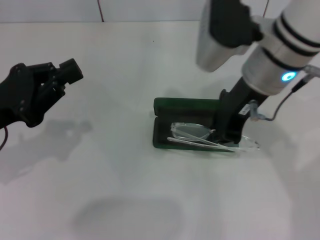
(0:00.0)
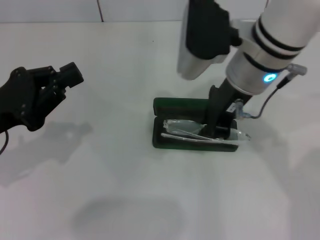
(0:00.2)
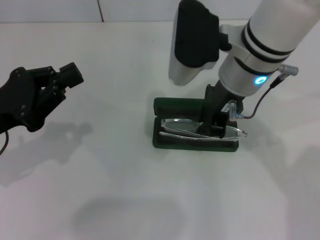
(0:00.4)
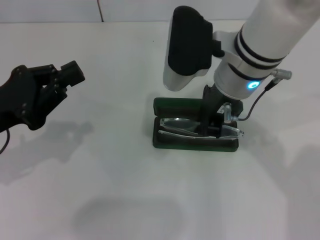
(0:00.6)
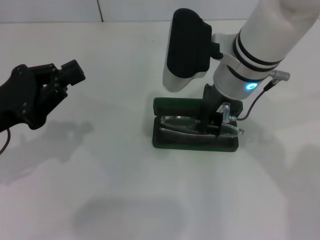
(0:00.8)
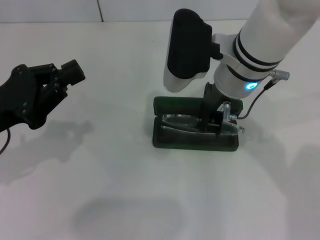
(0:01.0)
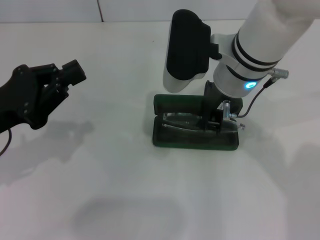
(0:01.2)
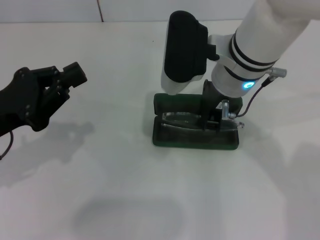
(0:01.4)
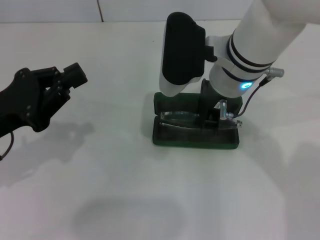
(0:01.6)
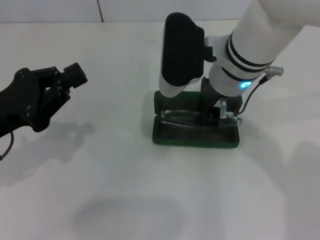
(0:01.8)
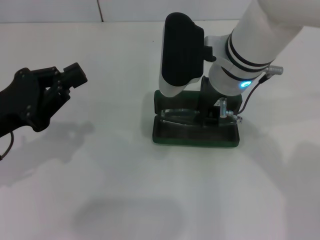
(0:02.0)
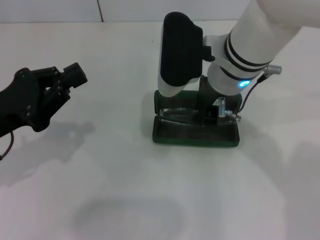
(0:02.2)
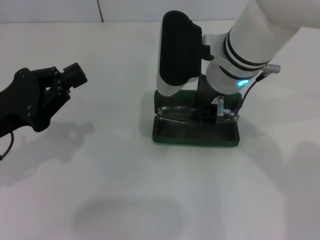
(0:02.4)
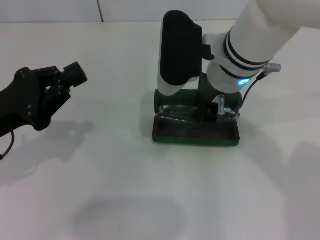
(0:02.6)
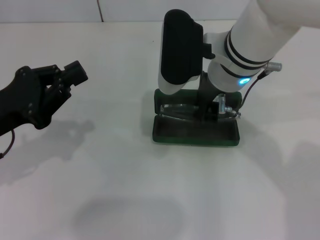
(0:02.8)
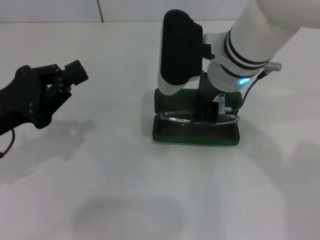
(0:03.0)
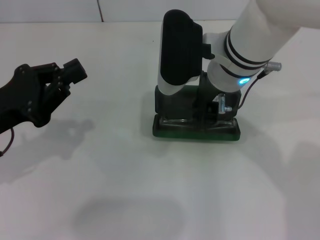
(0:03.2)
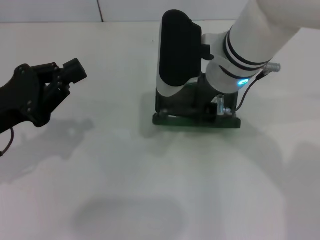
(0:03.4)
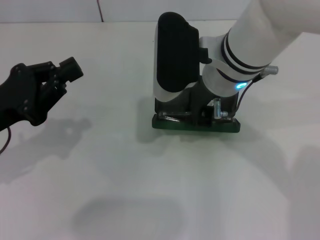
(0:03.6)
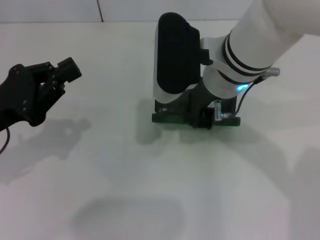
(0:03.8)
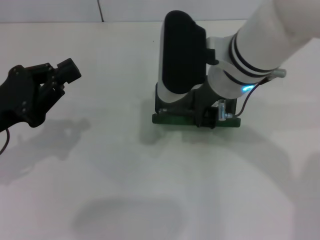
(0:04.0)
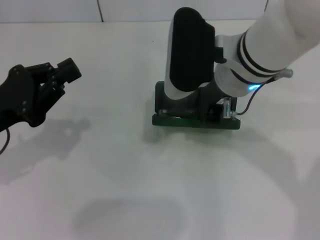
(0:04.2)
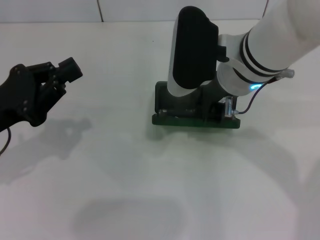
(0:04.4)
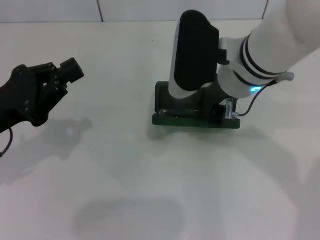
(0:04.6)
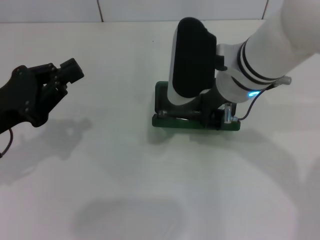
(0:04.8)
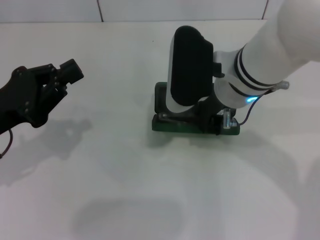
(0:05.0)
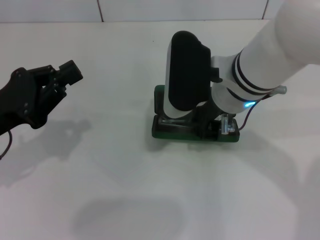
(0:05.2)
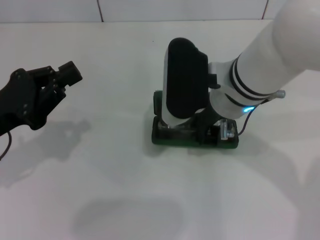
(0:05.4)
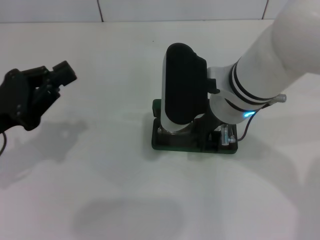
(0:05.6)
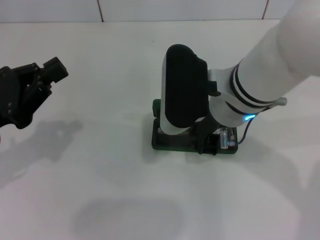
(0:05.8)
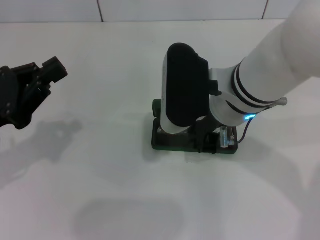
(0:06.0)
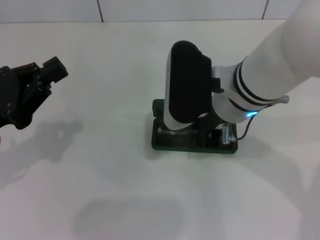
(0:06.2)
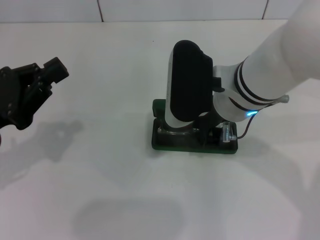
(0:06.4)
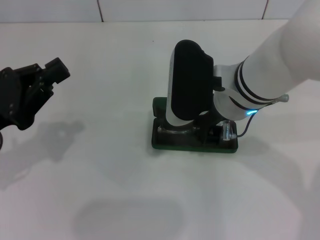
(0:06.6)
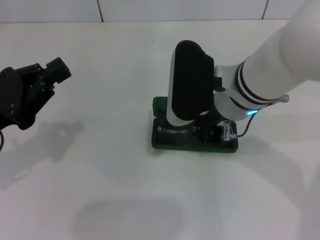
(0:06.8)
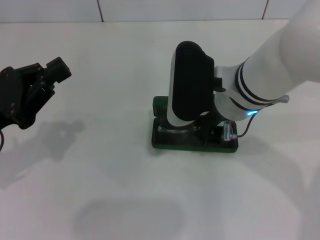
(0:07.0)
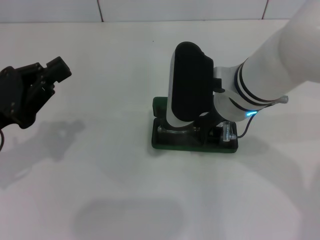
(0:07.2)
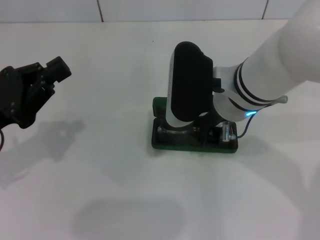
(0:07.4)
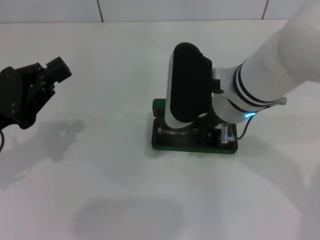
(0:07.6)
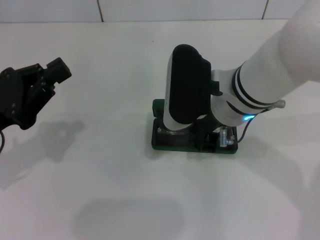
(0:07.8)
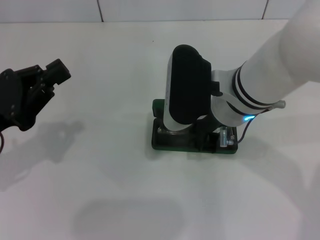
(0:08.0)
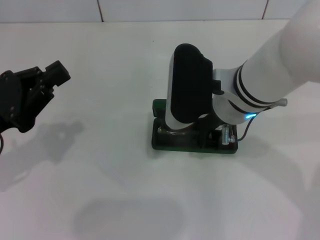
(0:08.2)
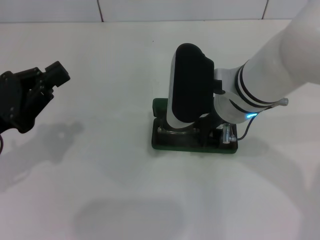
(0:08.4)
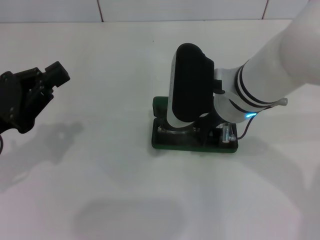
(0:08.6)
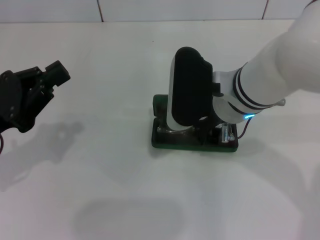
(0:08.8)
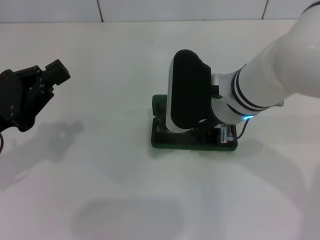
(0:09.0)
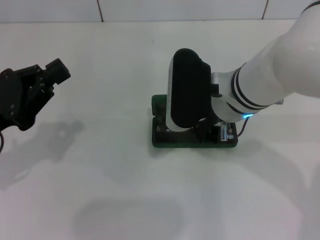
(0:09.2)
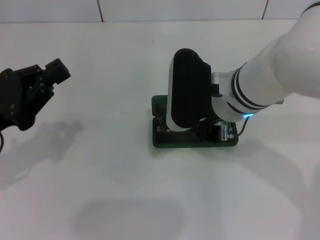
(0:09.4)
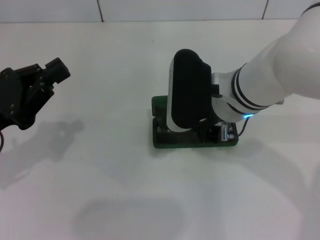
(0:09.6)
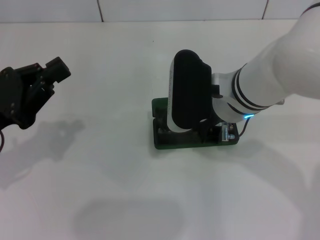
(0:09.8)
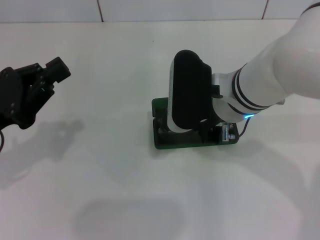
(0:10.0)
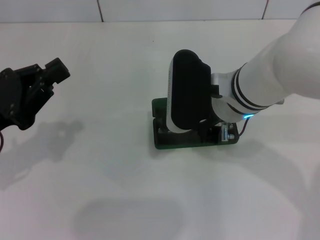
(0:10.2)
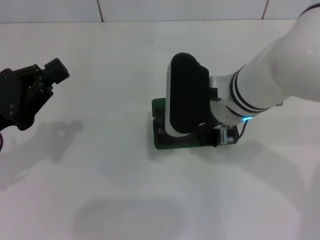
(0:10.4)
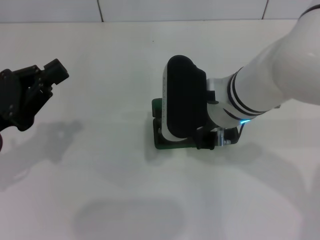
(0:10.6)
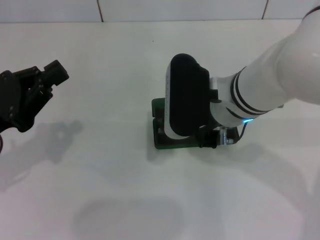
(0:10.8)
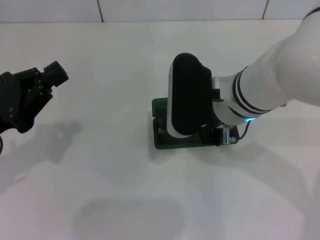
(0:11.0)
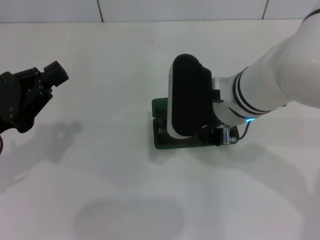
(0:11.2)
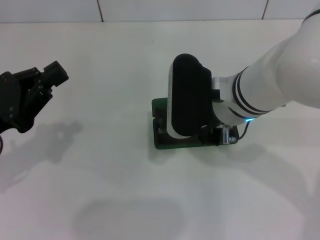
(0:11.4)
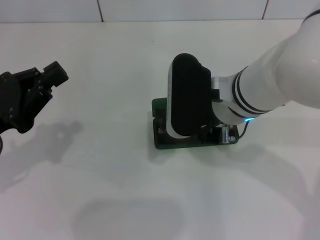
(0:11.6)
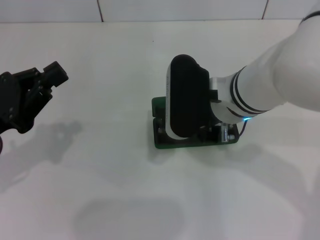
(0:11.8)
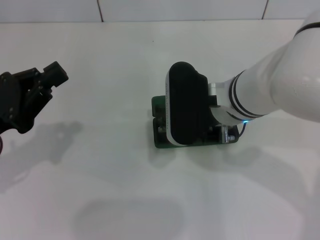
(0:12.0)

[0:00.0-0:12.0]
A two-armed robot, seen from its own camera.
Step, 0:00.0 to 0:04.2: Put the glasses into the case with your right hand.
0:00.0 to 0:01.6: The right gripper shifts by some 5 cm.
0:01.6 to 0:03.0: Neither gripper changes place.
0:03.0 to 0:07.6: There are only small adjustments of the grippers.
0:07.6 to 0:10.4: Neither gripper changes place.
0:10.4 to 0:12.0: The grippers stay close to where they were, moving slightly.

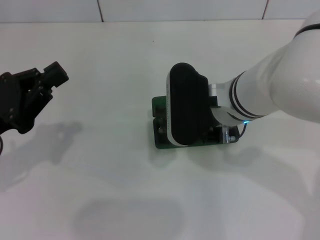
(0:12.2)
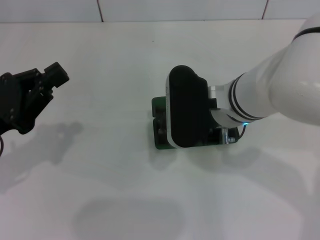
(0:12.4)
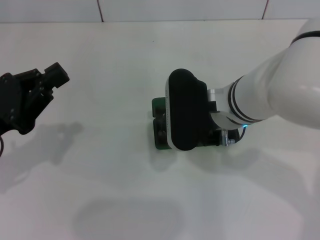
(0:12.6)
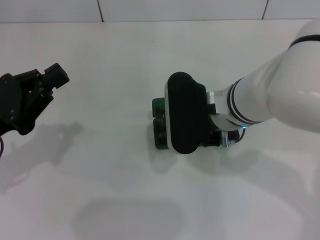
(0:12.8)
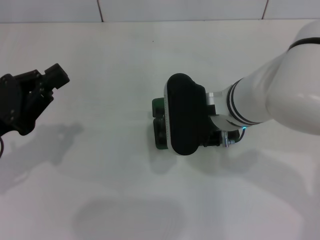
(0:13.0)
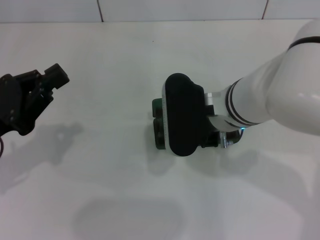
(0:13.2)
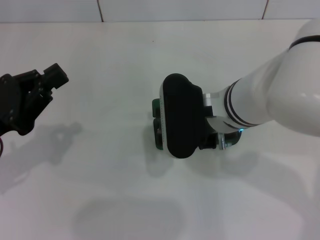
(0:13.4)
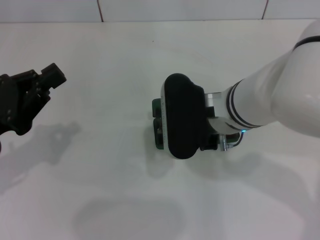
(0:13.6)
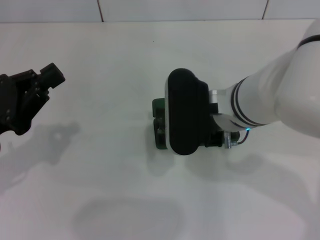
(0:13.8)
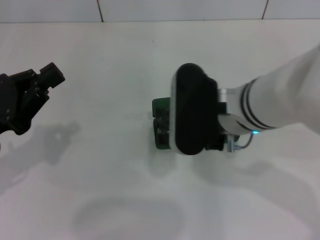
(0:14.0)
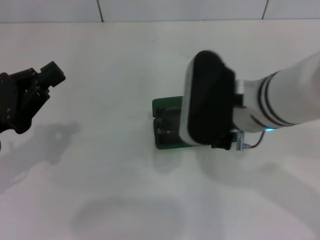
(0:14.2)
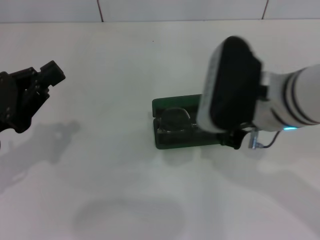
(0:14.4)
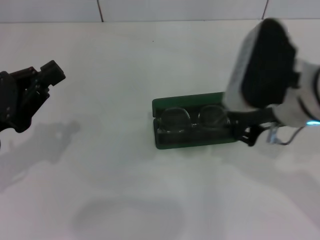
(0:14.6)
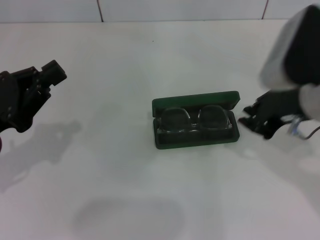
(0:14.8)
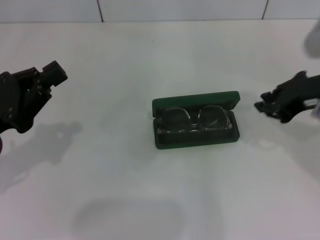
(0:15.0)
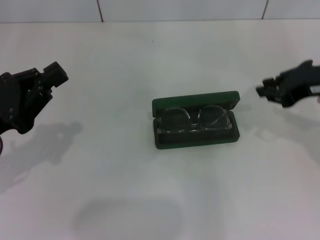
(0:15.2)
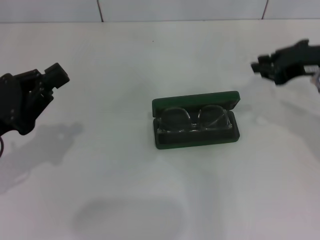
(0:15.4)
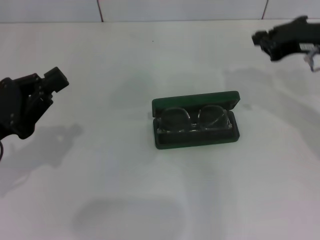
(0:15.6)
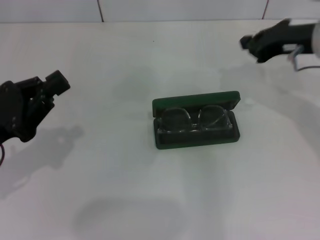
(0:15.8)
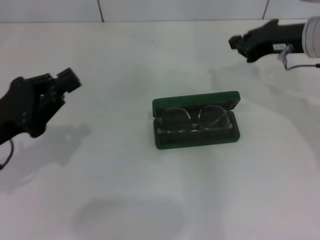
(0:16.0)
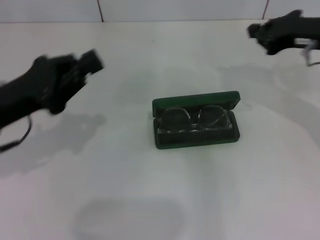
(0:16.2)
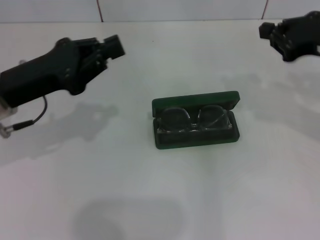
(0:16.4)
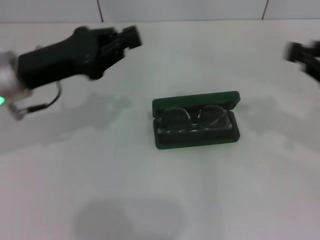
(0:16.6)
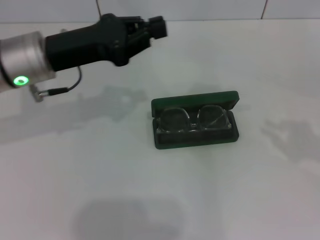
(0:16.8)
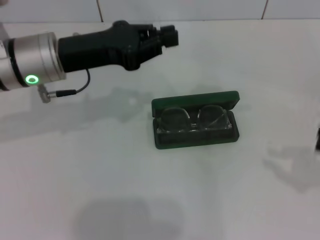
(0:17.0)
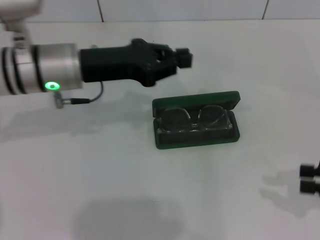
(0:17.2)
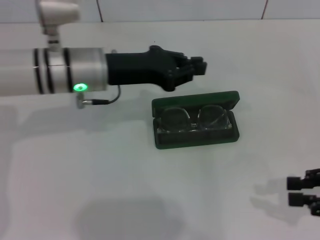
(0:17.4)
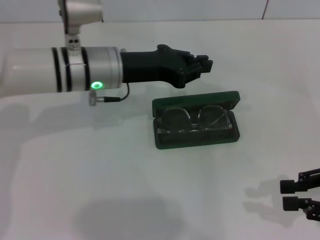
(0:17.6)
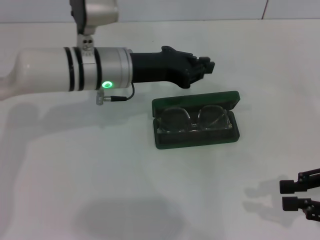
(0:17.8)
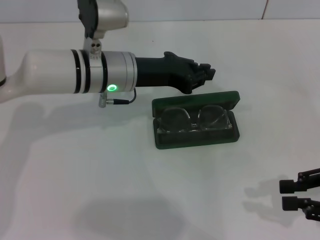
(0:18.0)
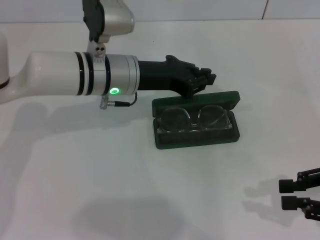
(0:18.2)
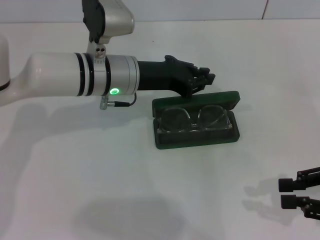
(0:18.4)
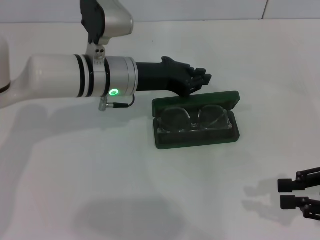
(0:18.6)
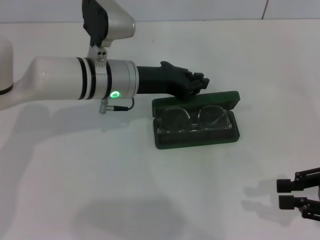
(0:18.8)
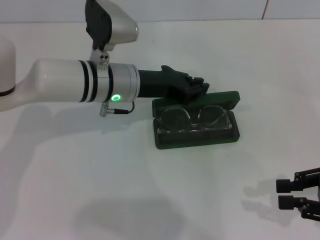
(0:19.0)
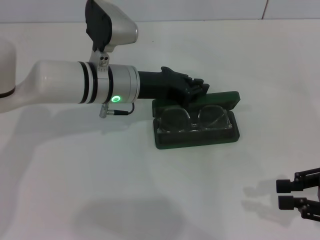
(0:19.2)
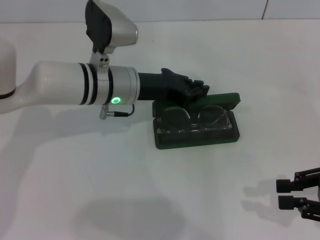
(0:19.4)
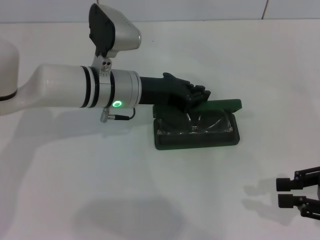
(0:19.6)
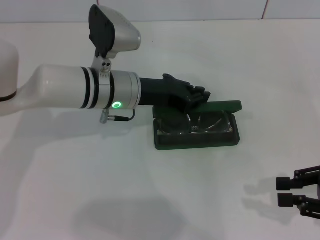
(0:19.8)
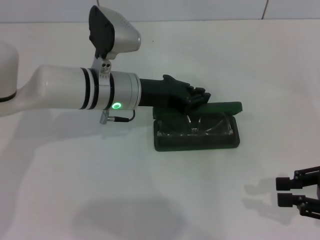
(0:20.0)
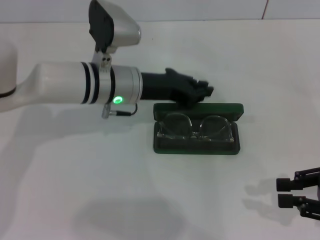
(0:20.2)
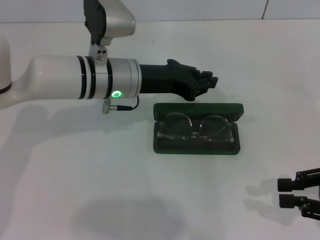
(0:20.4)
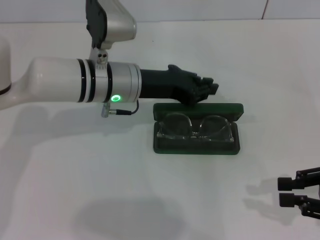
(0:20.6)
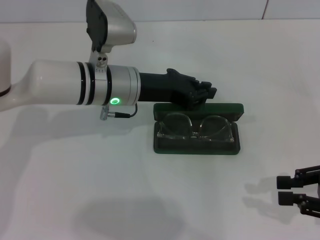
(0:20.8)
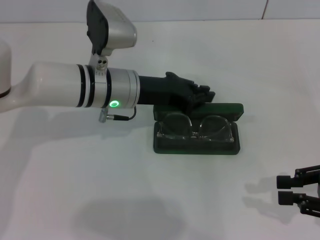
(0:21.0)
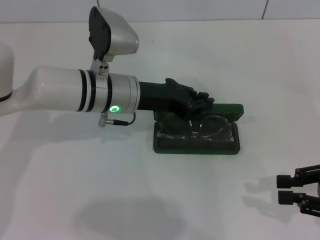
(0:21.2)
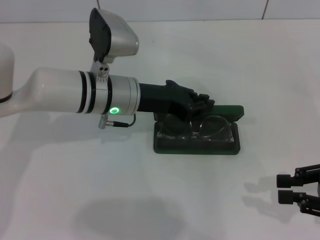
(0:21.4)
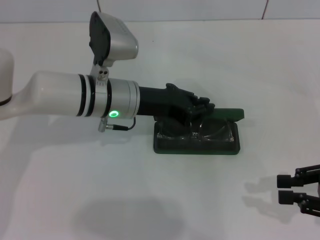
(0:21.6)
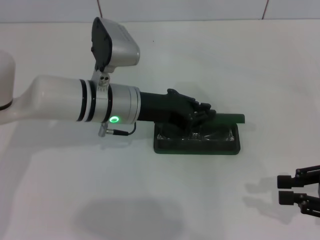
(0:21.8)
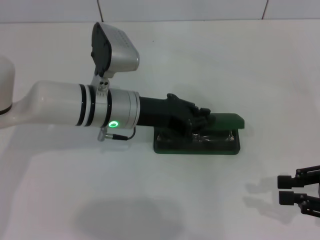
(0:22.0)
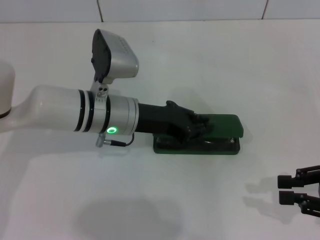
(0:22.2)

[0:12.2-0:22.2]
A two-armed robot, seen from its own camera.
0:12.2 to 0:13.6: The grippers move only a little.
0:13.6 to 0:15.0: The right gripper is displaced to the right by about 15 cm.
0:15.0 to 0:16.4: The left gripper travels forward by approximately 5 cm; the right gripper reaches about 10 cm forward, then returns.
0:16.4 to 0:18.0: The left gripper goes some 15 cm to the right and forward, while the right gripper moves backward, downward and to the right, some 15 cm, and opens its fingers.
0:18.0 to 0:22.2: The grippers move only a little.
